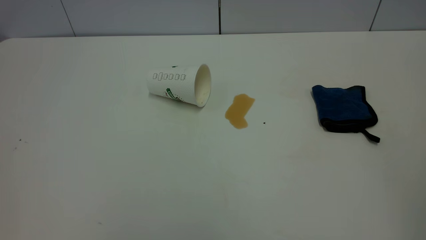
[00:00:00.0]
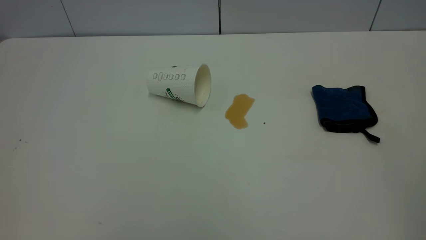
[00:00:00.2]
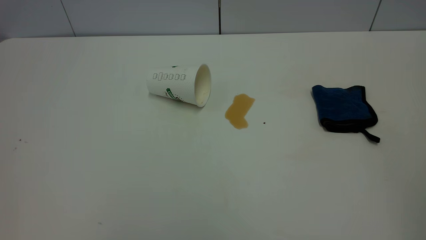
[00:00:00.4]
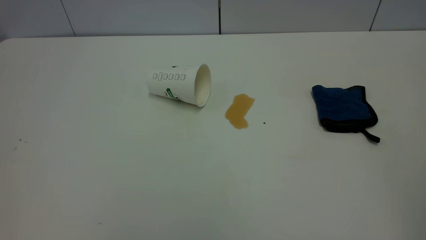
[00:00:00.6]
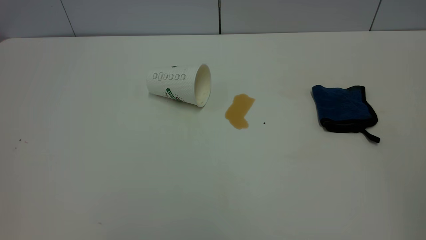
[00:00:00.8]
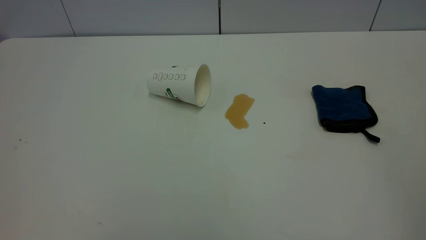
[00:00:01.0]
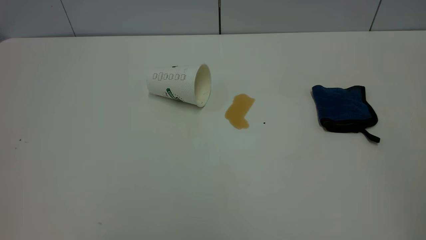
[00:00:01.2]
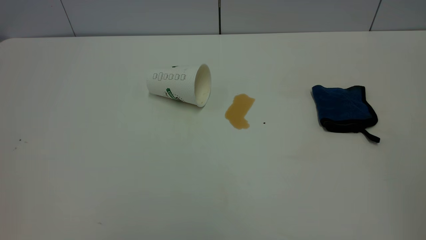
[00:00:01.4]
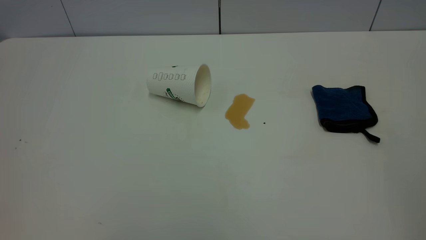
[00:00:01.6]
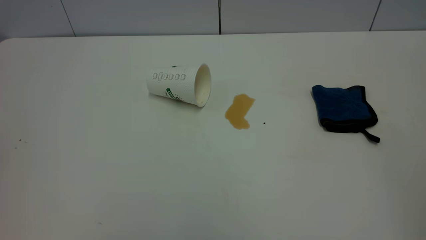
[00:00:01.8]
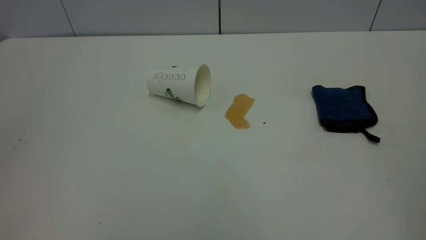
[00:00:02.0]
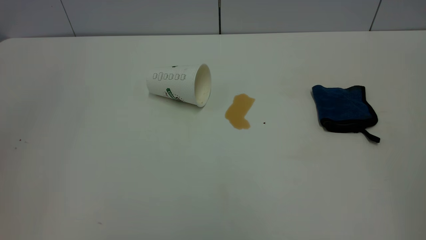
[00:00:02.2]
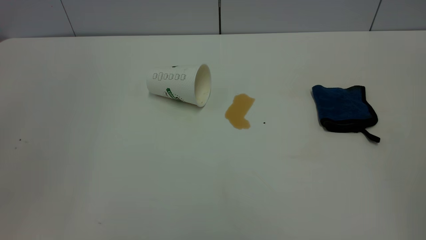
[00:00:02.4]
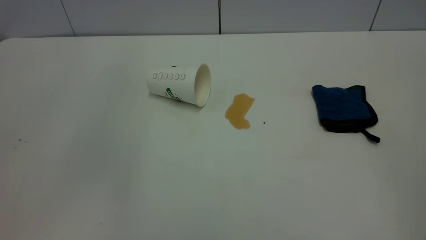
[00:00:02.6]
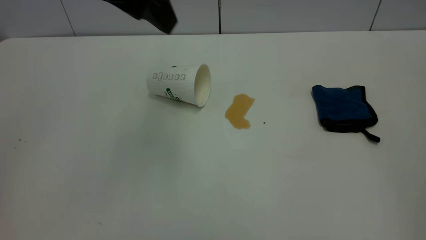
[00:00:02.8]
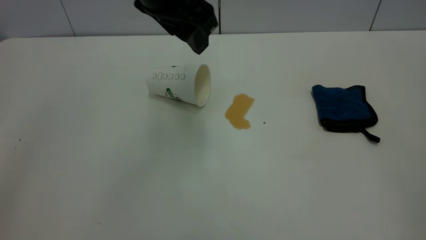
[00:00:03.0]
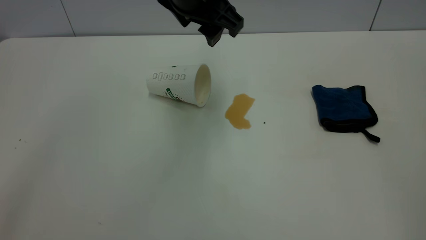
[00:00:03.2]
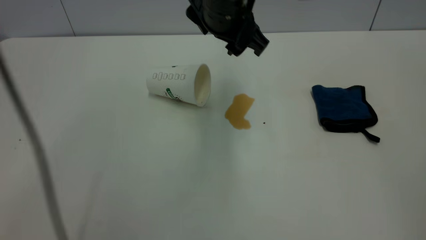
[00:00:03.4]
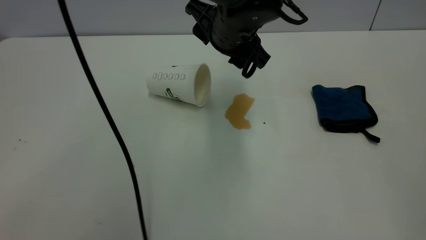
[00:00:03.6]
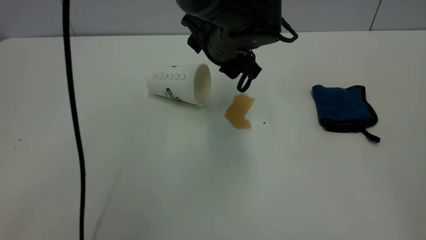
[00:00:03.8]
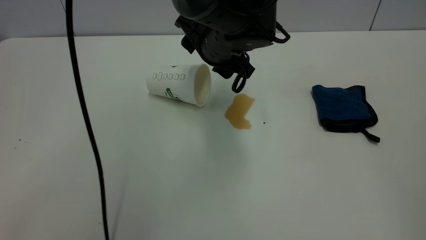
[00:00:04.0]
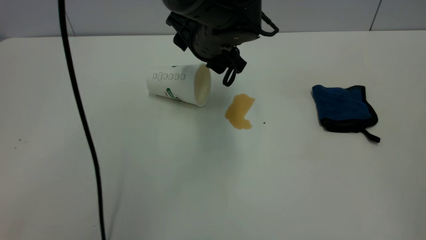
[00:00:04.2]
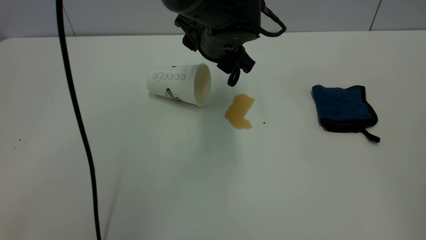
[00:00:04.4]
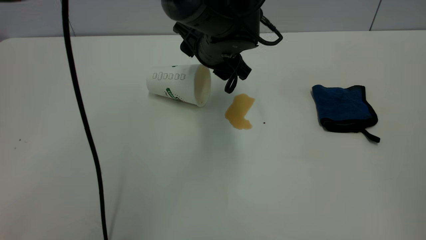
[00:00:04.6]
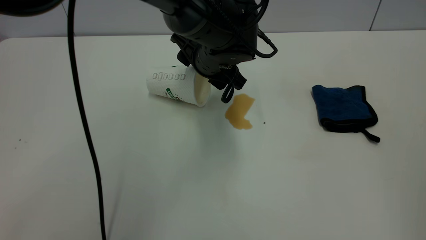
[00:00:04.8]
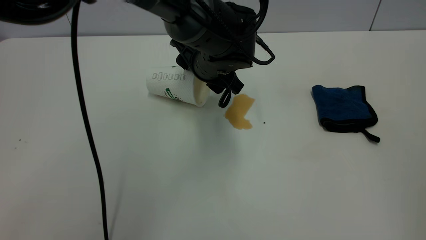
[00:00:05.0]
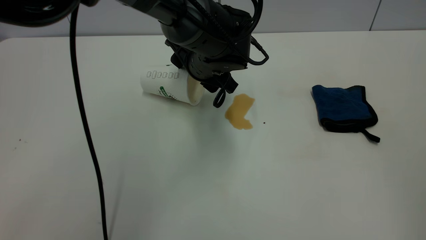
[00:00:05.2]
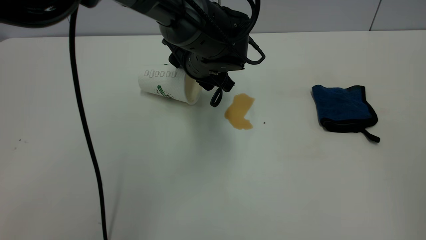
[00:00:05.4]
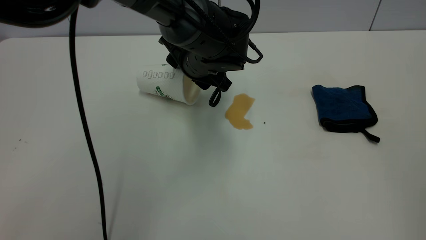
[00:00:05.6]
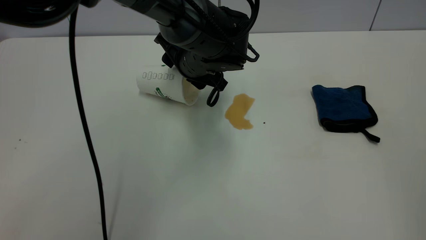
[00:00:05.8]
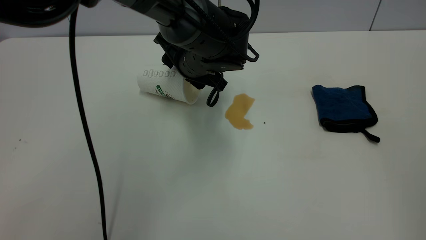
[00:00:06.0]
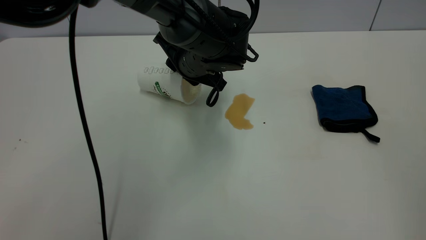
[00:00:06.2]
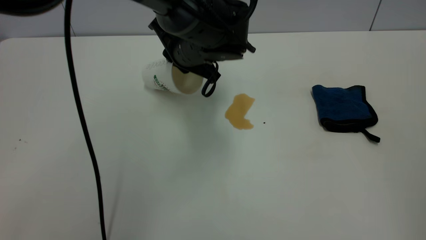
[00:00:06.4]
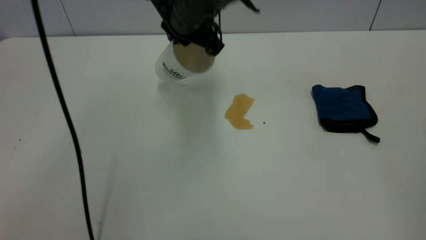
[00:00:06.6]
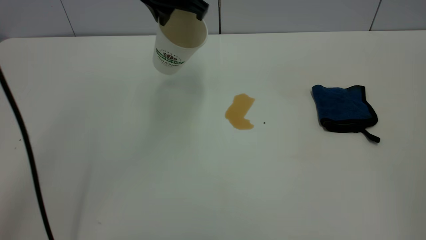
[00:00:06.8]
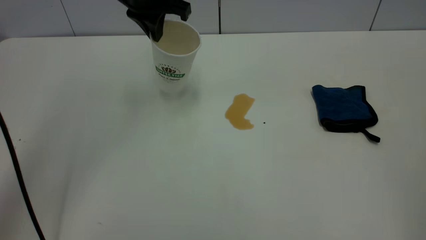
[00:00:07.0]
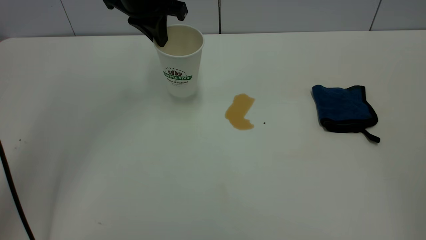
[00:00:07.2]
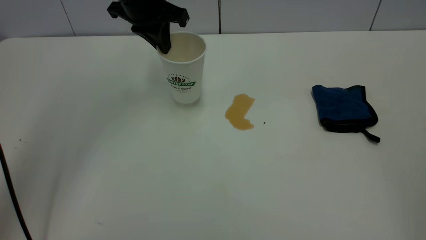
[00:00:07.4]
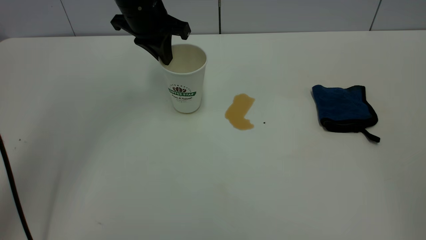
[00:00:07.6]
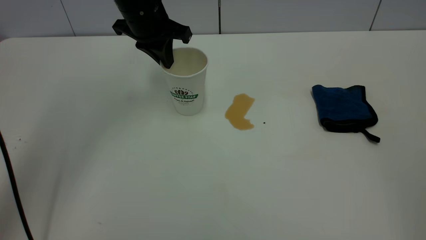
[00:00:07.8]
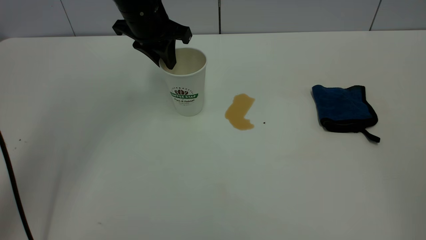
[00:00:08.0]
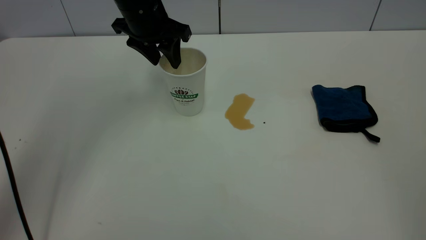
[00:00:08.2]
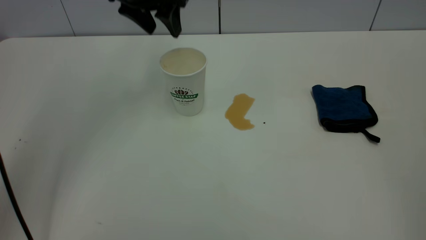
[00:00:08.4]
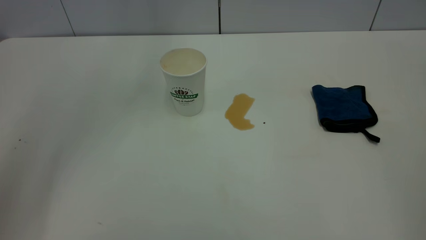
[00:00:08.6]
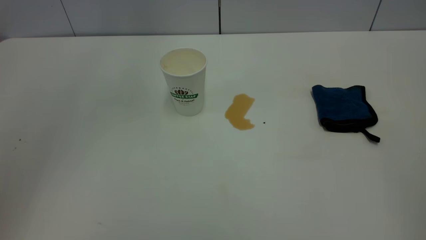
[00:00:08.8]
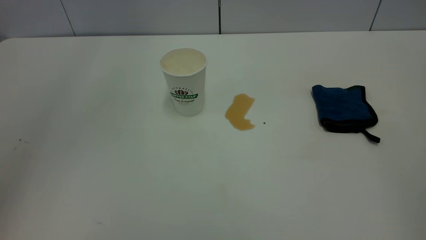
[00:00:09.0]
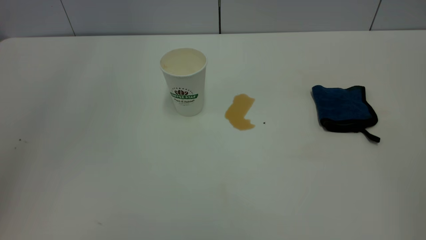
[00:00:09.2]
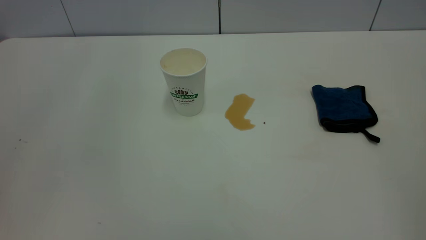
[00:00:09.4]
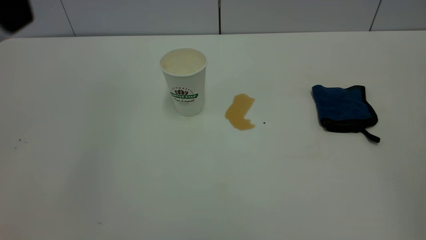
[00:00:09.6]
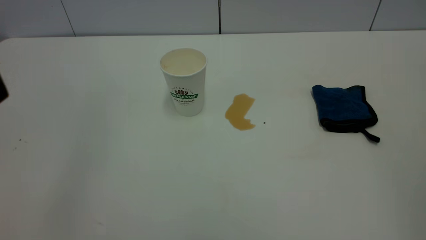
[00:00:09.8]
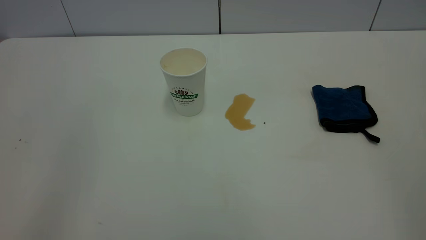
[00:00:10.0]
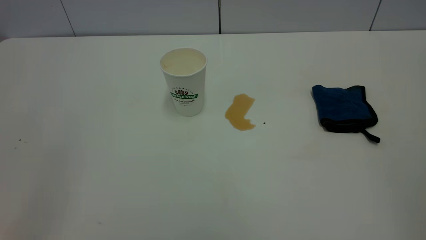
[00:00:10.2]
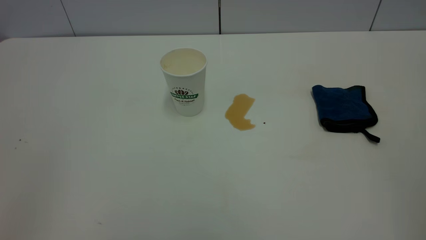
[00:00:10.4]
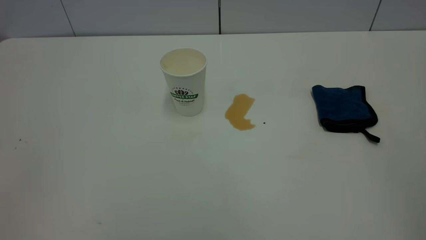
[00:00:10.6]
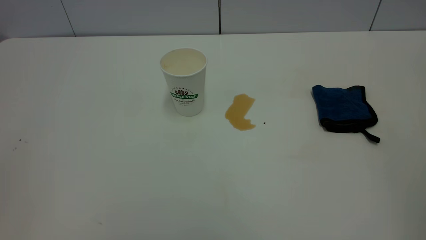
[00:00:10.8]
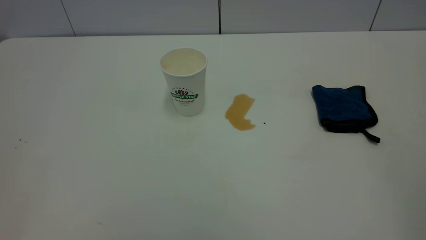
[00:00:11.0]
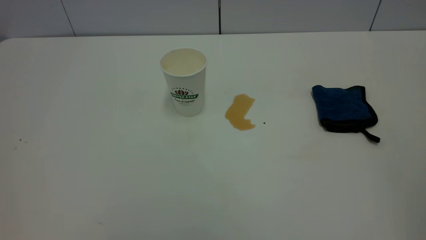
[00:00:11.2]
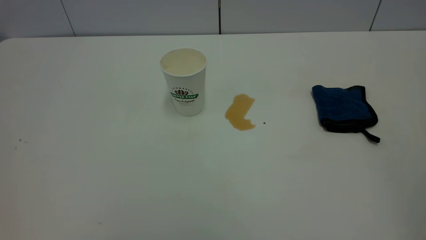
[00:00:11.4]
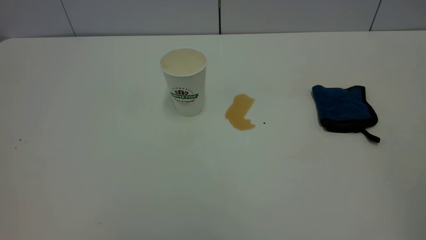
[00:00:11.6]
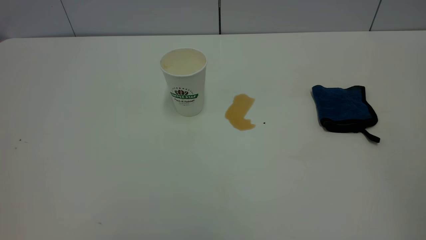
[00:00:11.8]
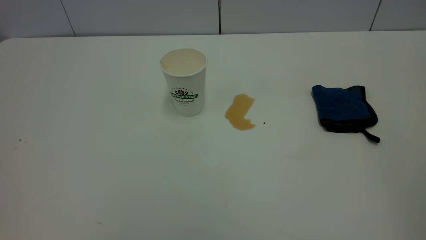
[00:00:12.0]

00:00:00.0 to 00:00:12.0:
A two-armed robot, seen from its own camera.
Task of the whole recording: the left gripper pick up the fallen cup and place it upright, the right gripper grasp the blue rag and wipe the tea stain on the table, the right gripper put the blue rag back in its original position.
Step, 00:00:00.0 to 00:00:08.2: Stand the paper cup upright.
00:00:00.0 to 00:00:01.6: Neither gripper changes place.
00:00:01.6 to 00:00:03.0: The left gripper is displaced forward and to the right by about 40 cm.
00:00:03.0 to 00:00:04.4: The left gripper travels downward, to the right and forward by about 15 cm.
00:00:04.4 to 00:00:06.0: The left gripper moves roughly 5 cm.
00:00:06.0 to 00:00:07.6: The left gripper travels to the left, upward and forward by approximately 15 cm, and closes.
00:00:07.6 to 00:00:09.0: The left gripper shifts approximately 30 cm upward and backward, and opens.

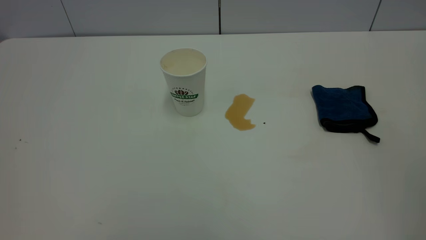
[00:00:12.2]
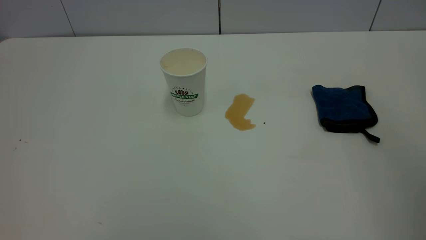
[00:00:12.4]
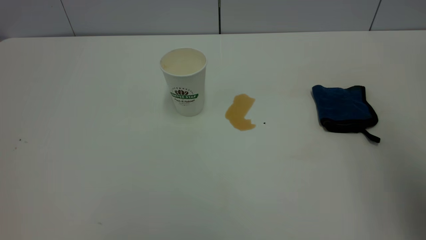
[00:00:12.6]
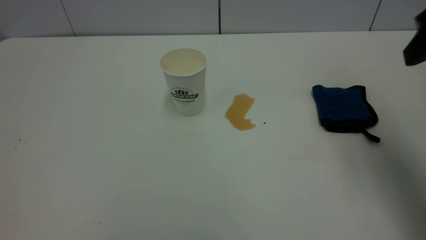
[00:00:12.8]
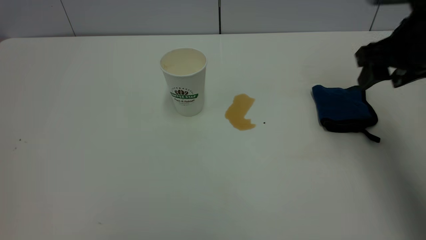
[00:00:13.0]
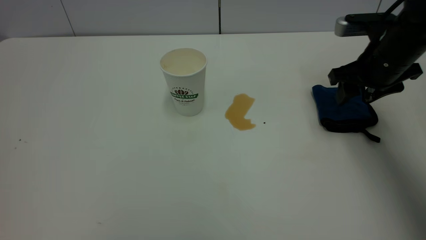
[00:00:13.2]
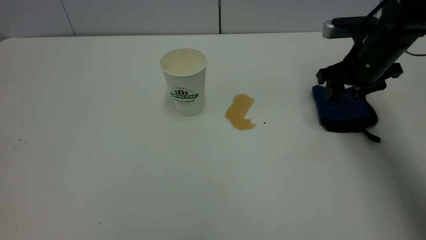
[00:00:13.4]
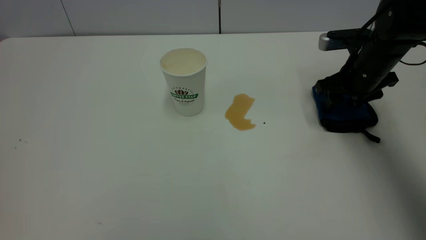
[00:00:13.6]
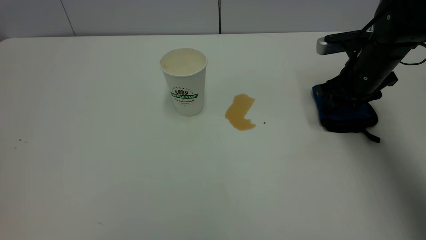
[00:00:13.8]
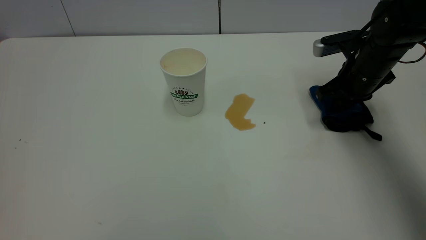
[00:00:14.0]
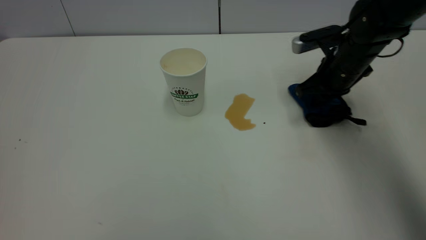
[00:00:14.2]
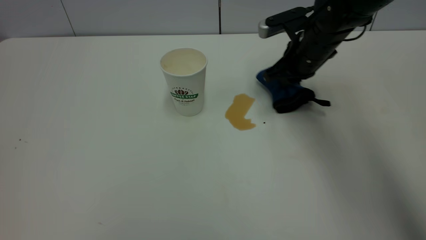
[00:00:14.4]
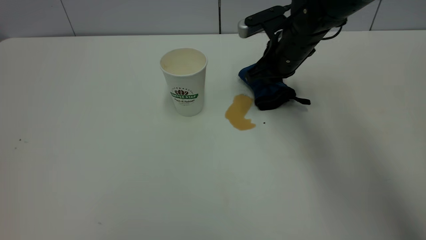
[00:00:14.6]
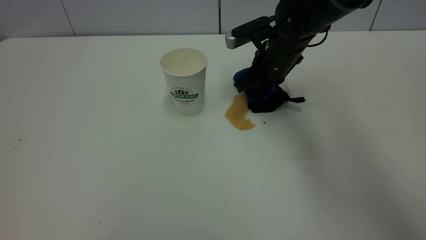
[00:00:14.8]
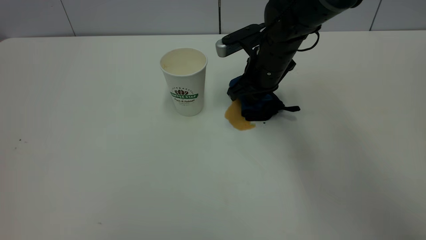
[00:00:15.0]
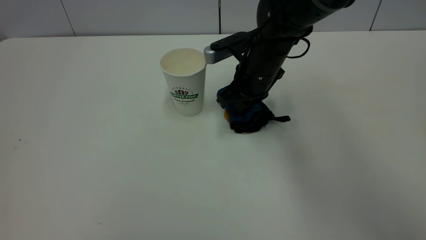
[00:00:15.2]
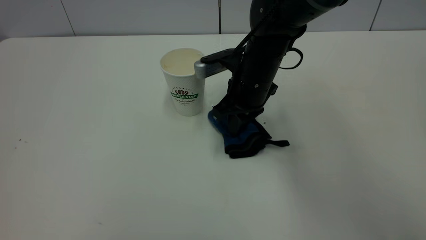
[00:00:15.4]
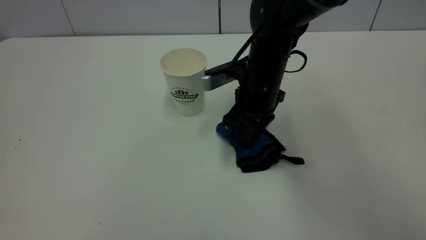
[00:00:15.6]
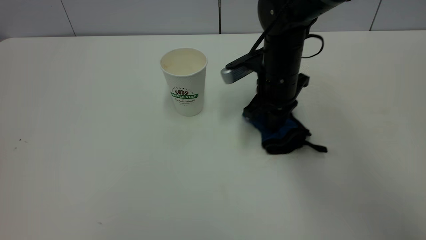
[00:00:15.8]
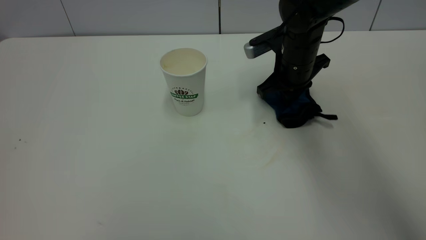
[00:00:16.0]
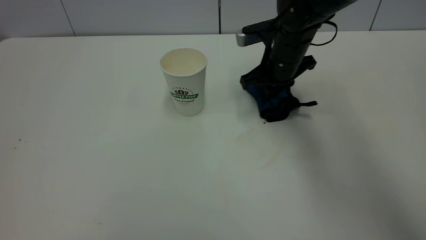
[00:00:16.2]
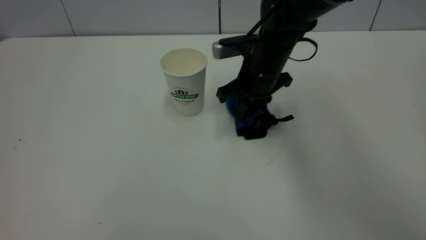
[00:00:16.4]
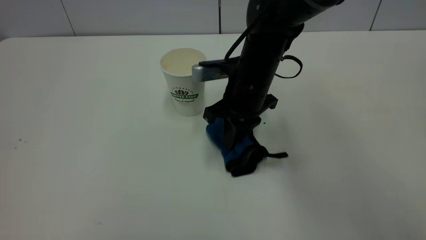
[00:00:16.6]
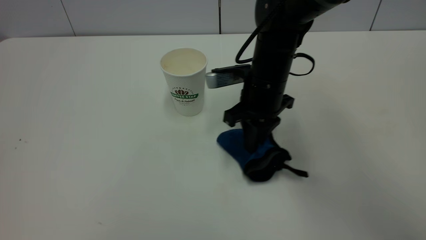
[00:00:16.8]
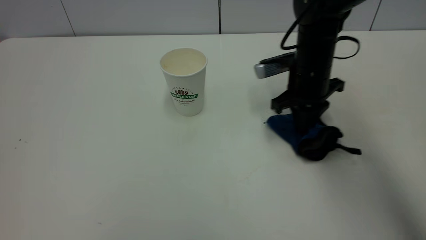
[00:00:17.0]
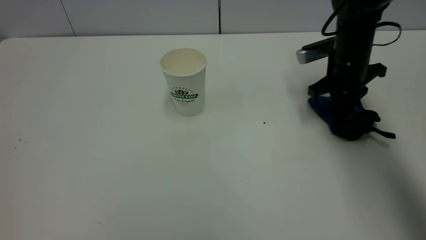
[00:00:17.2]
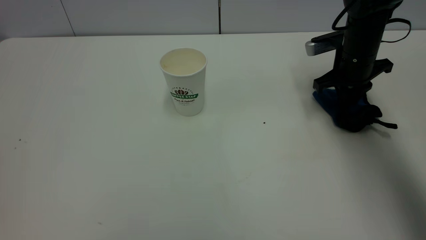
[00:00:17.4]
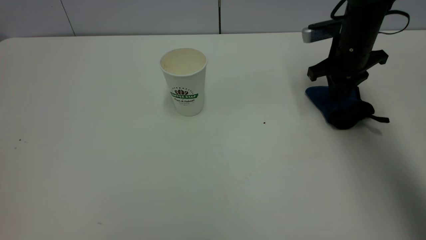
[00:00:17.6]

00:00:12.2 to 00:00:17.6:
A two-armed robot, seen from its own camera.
Task of the whole recording: the left gripper pick up the fallen cup and place it upright, the right gripper grasp the blue rag and wipe the tea stain on the table, the right gripper put the blue rag back in its original position.
00:00:12.2 to 00:00:13.6: The right gripper heads forward and downward, covering roughly 50 cm.
00:00:13.6 to 00:00:15.0: The right gripper travels to the left by some 15 cm, and closes its fingers.
00:00:16.2 to 00:00:17.6: The right gripper goes some 15 cm to the right, and opens.
